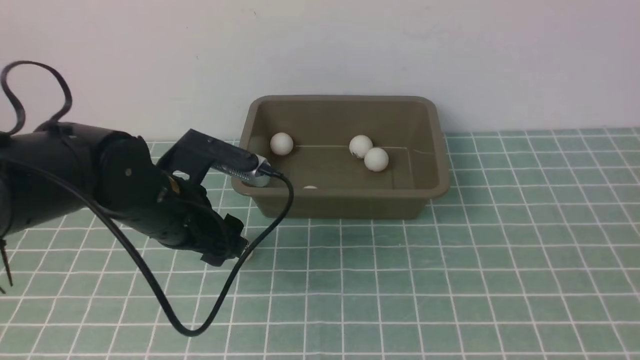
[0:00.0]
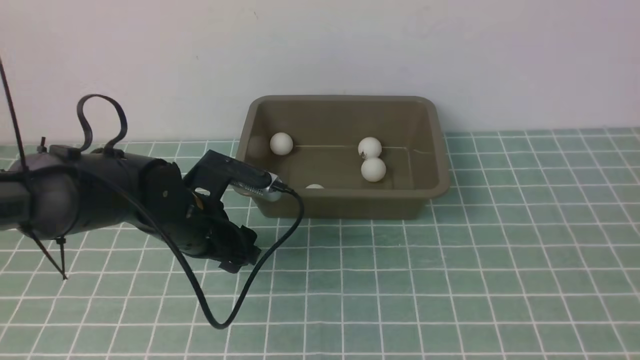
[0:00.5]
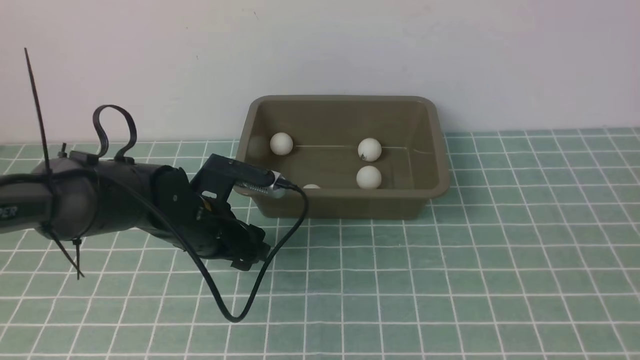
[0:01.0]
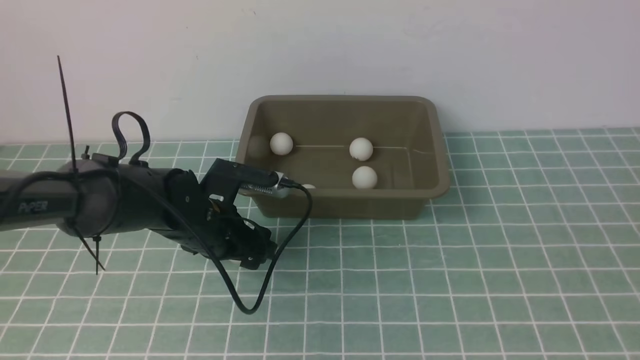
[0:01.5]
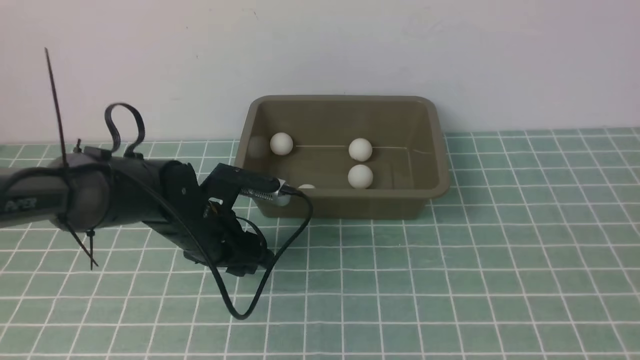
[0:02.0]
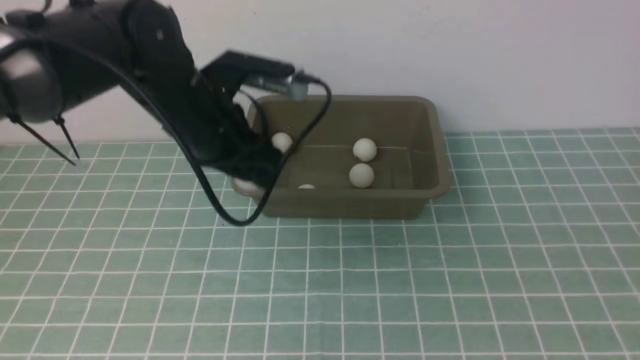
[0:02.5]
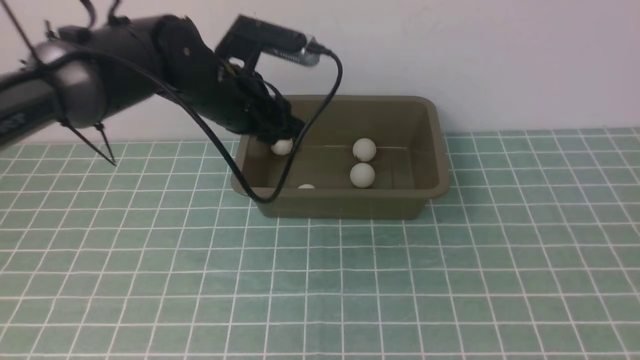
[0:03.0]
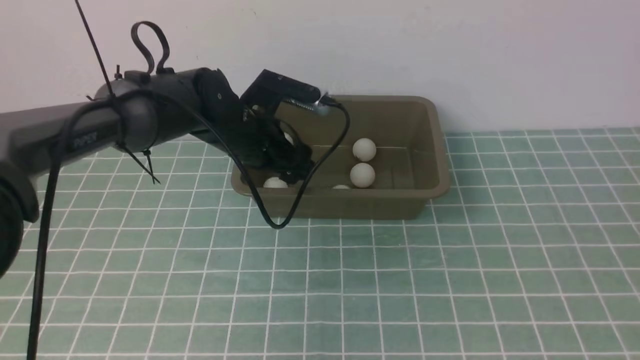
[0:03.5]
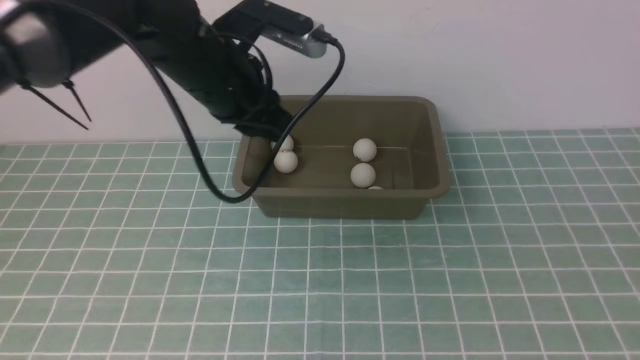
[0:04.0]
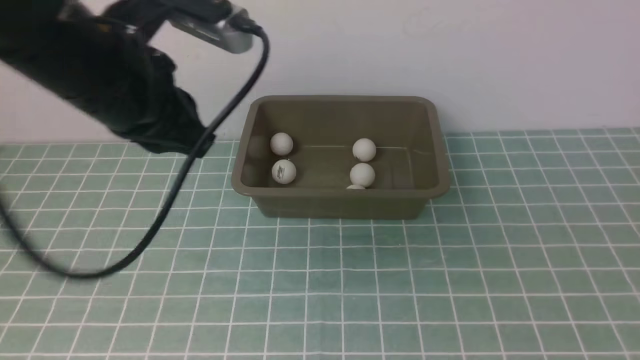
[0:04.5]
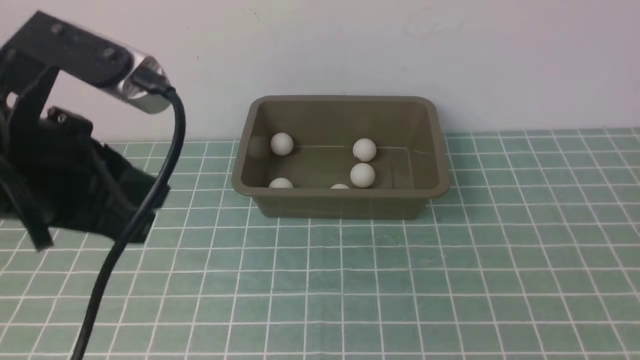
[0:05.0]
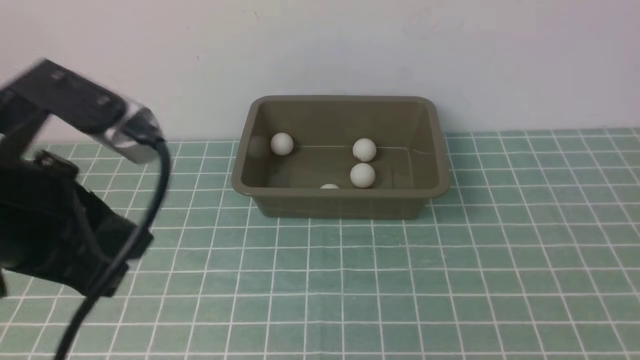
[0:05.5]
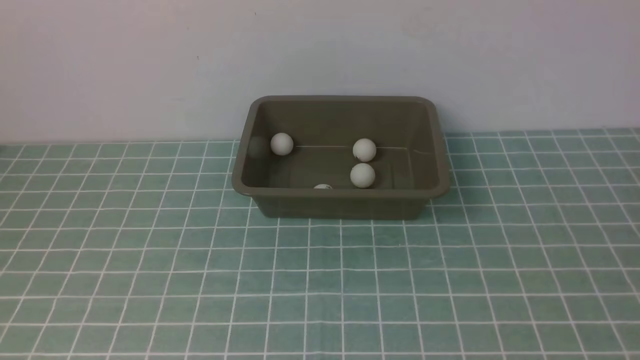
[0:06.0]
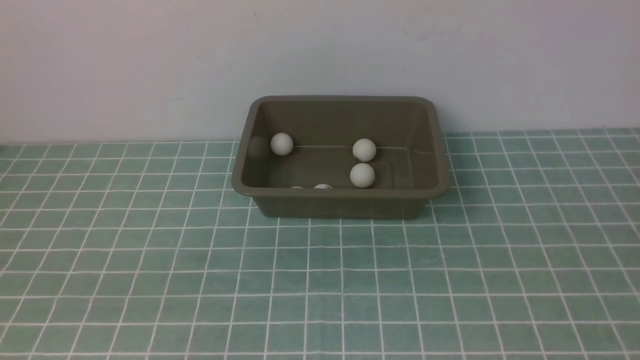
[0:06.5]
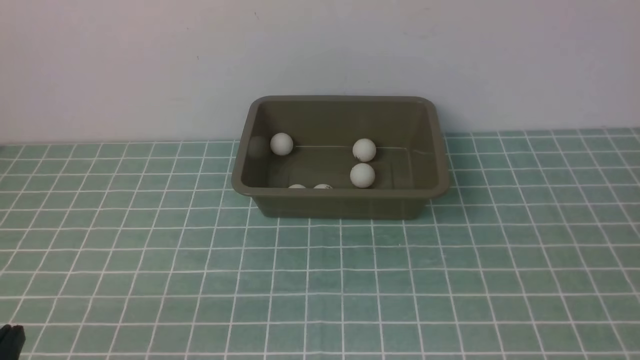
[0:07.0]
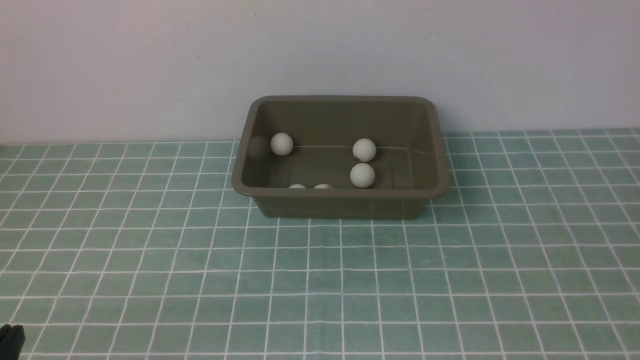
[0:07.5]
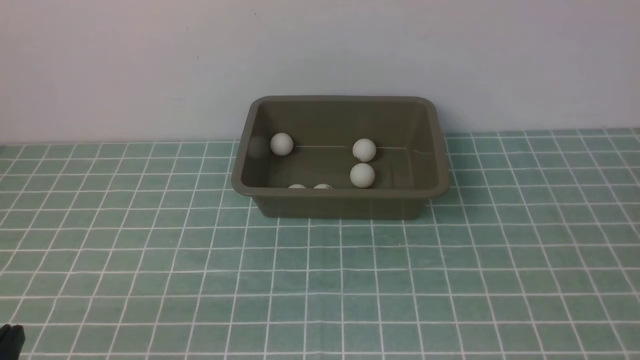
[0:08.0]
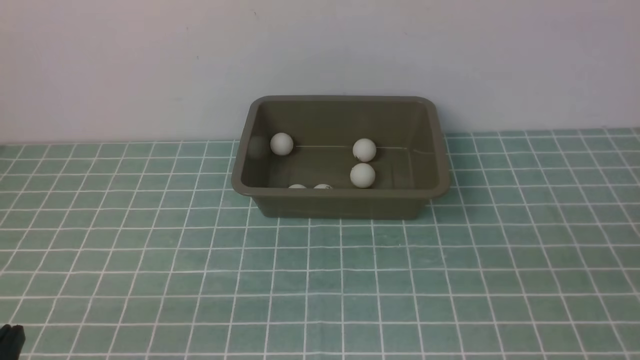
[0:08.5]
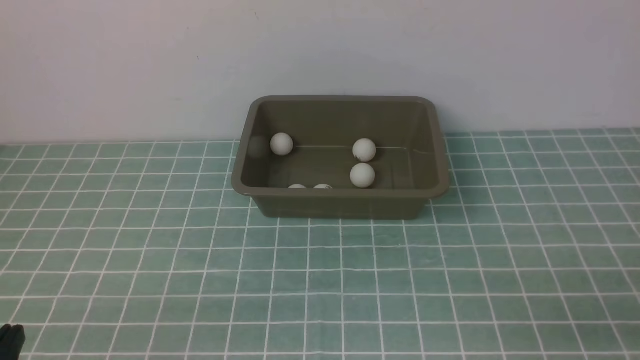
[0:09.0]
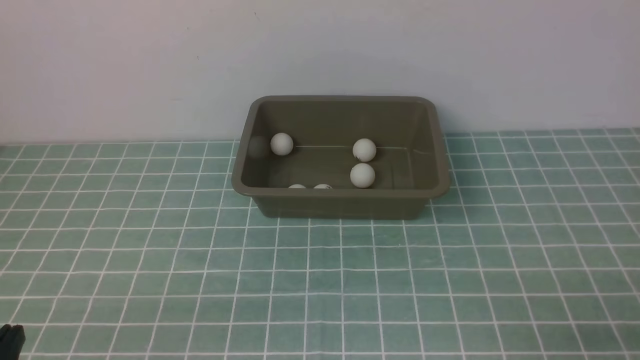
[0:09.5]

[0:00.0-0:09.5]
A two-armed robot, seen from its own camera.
Step, 0:00.0 to 0:02.0: use the left arm to clamp the table tennis ball closest to it.
Step, 0:02.5 to 0:03.5: use the left arm to put the table tennis ball into the box.
0:00.0 to 0:02.0: The left gripper is displaced upward by about 10 cm.
0:02.0 to 0:04.0: The left gripper shifts roughly 20 cm backward and upward, and closes up.
0:04.0 to 0:05.5: The left gripper is displaced backward, downward and to the left by approximately 20 cm.
0:05.5 to 0:07.5: The left gripper heads downward, covering about 10 cm.

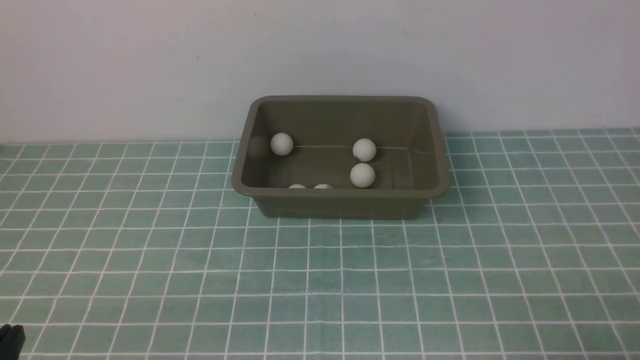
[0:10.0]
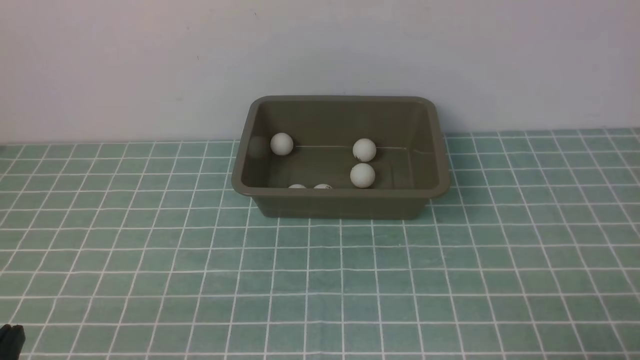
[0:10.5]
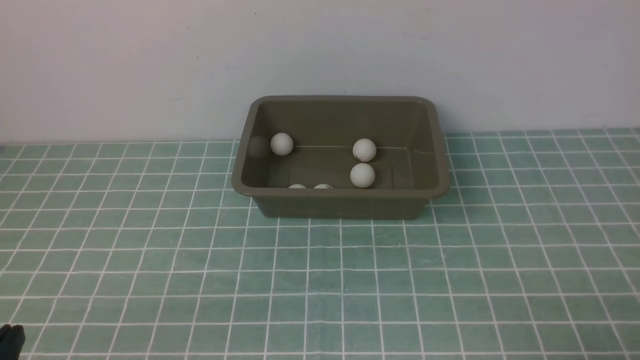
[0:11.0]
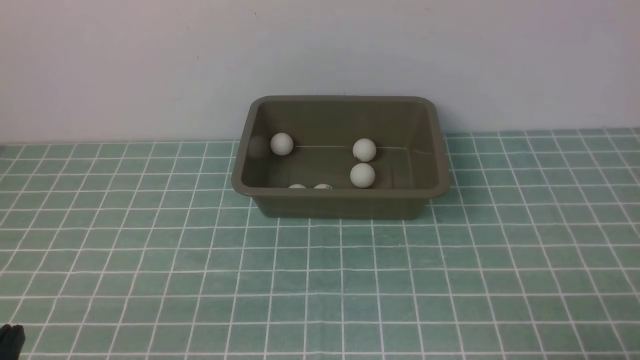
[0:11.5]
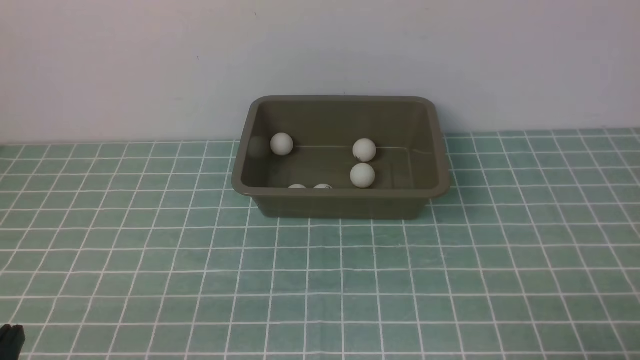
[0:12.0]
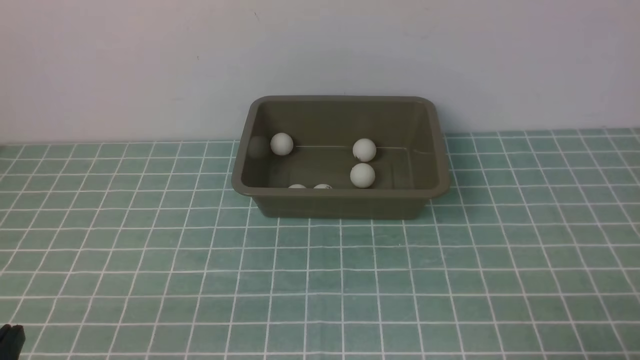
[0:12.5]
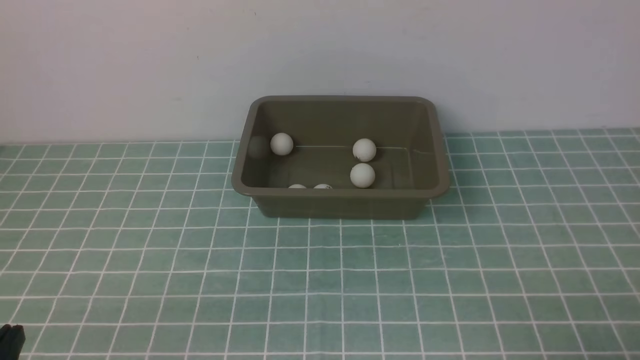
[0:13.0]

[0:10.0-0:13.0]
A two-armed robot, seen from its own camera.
0:10.0 to 0:13.0: Neither gripper changes place.
